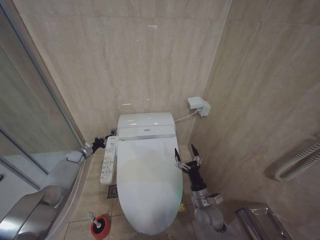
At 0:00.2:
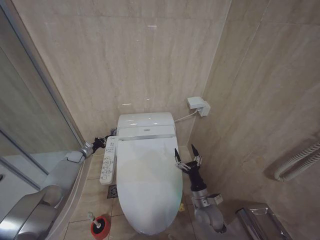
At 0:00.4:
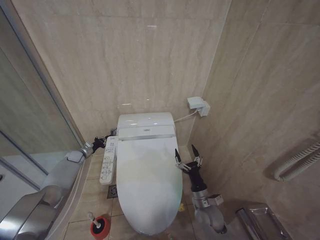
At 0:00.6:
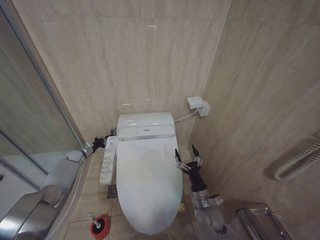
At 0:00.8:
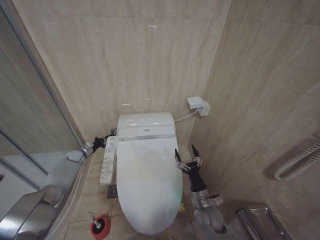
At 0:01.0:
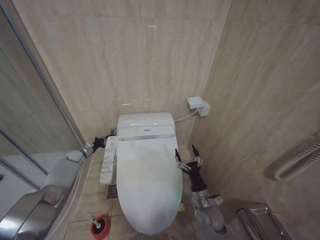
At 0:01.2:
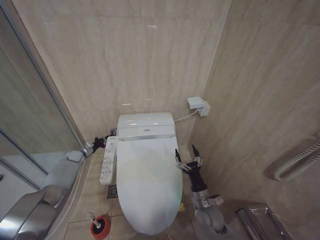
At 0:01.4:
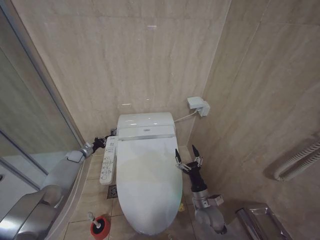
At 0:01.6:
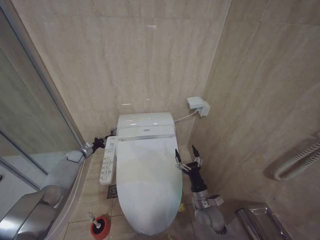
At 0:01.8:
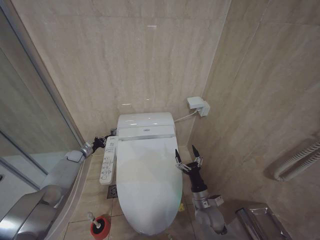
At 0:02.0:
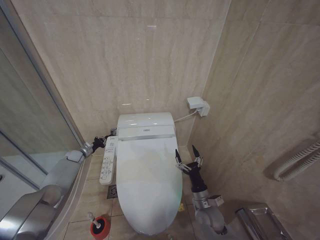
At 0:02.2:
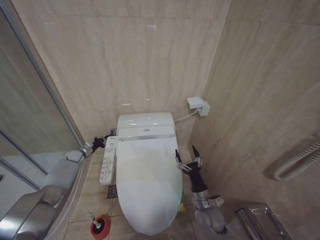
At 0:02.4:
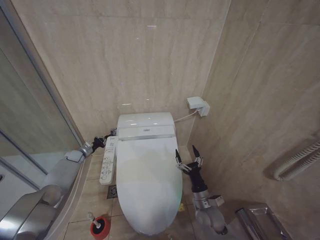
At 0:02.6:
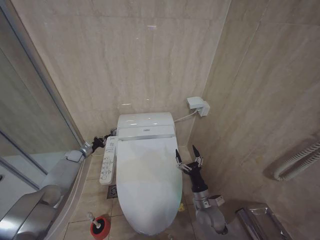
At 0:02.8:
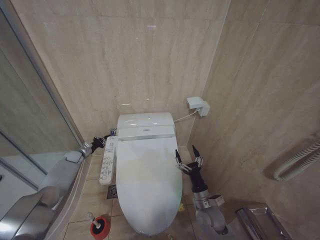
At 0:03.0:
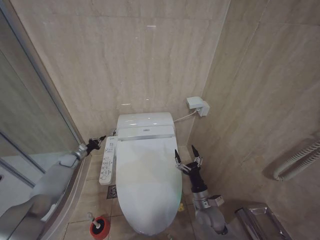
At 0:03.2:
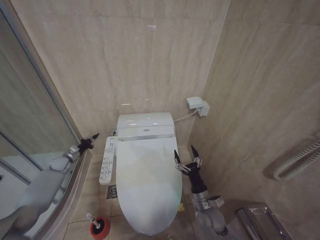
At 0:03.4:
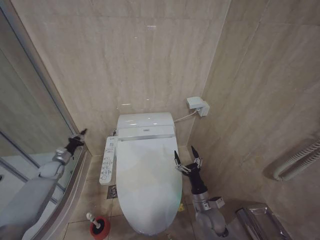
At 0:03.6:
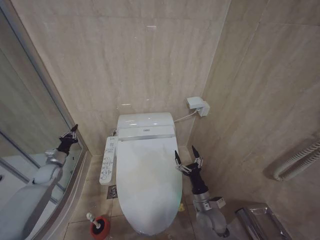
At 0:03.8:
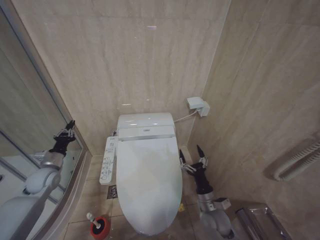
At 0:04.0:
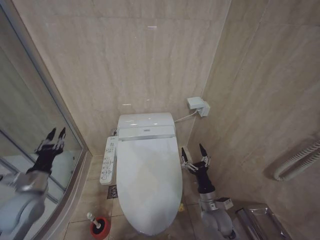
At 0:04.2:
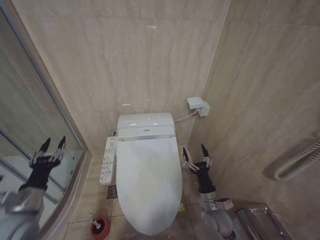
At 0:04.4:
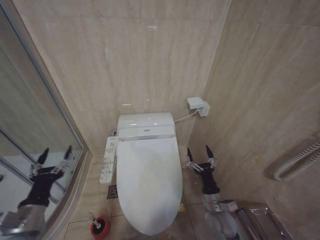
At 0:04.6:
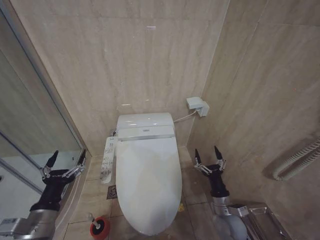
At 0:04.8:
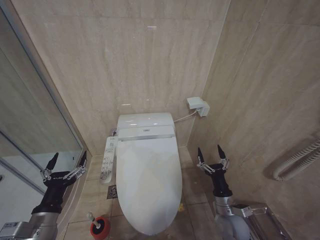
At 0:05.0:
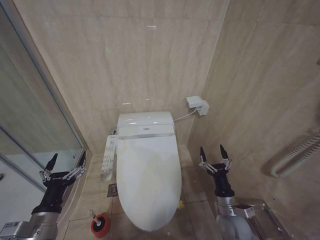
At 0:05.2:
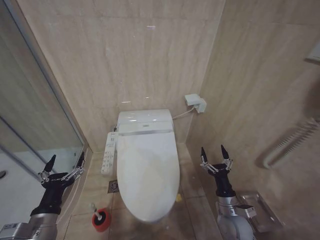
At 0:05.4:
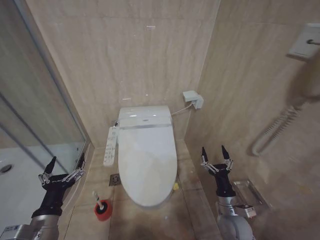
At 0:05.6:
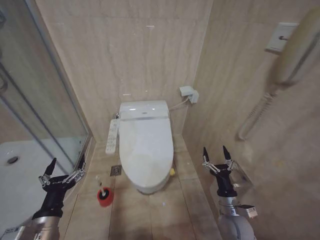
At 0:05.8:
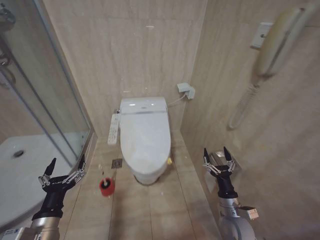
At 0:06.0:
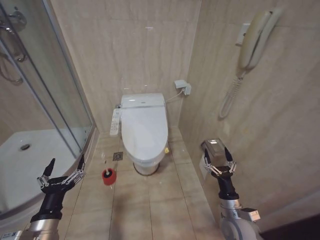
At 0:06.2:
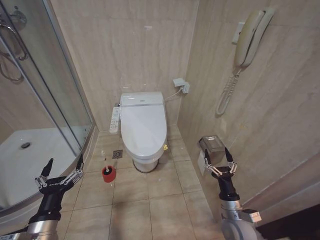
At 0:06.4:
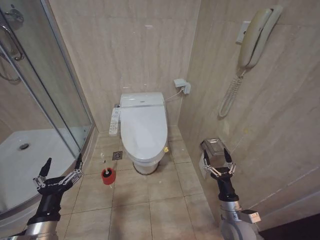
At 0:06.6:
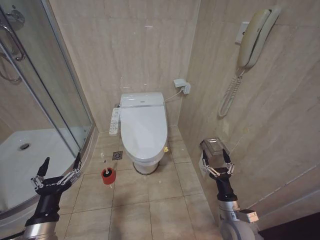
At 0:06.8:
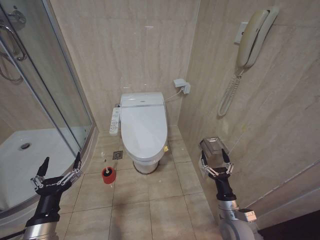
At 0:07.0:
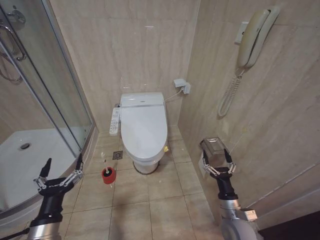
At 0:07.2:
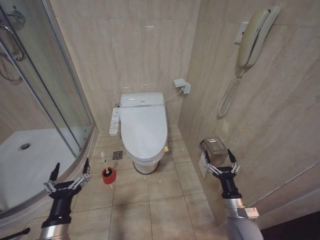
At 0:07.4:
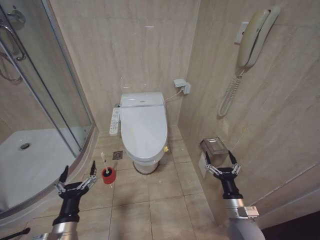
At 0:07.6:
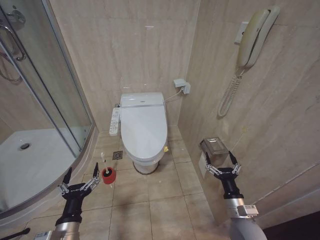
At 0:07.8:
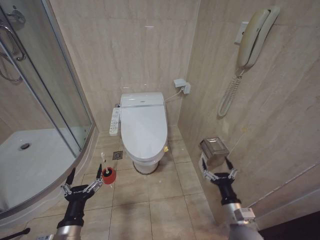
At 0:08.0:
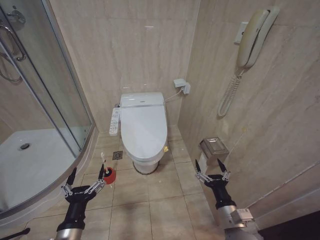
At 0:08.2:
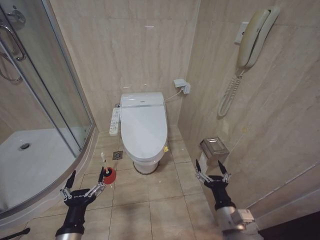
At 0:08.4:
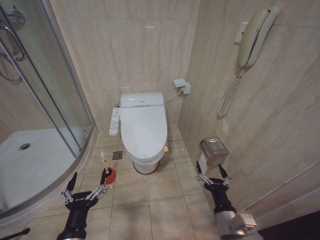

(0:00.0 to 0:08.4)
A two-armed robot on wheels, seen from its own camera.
Task of the whole recording: Open the toilet lid, clean the toilet bowl with a toilet brush, close the toilet lid, and flush.
0:00.0 - 0:02.8: Both grippers stay about where they are.
0:02.8 - 0:04.2: The left gripper moves backward and upward, approximately 35 cm, and opens.
0:04.2 - 0:05.6: The left gripper shifts some 10 cm to the right and backward, and opens; the right gripper goes roughly 5 cm to the right.
0:07.0 - 0:08.4: The left gripper travels to the right by some 5 cm. Meanwhile the right gripper travels upward, backward and to the left by approximately 10 cm.
